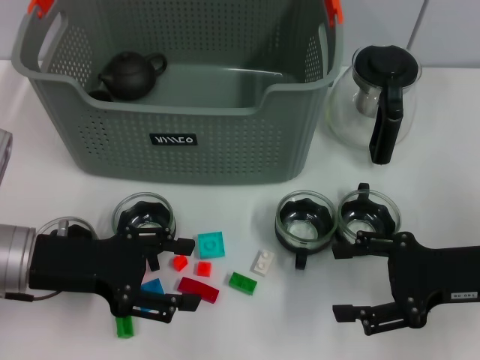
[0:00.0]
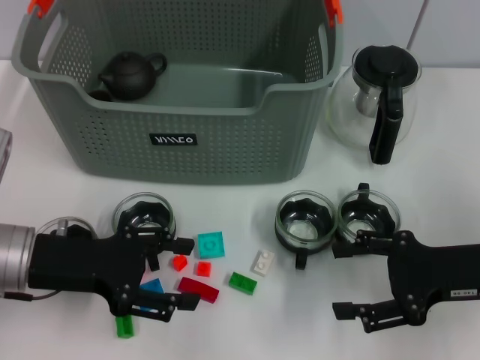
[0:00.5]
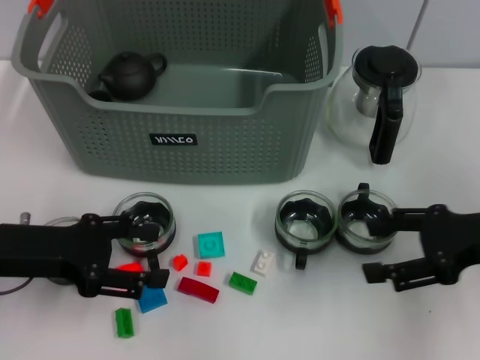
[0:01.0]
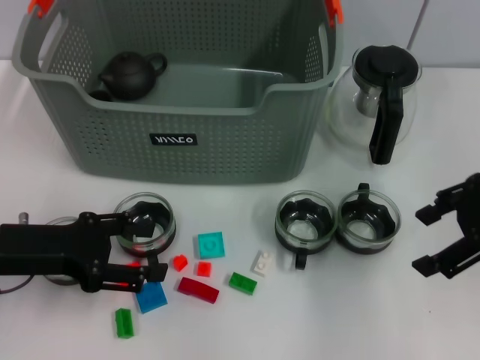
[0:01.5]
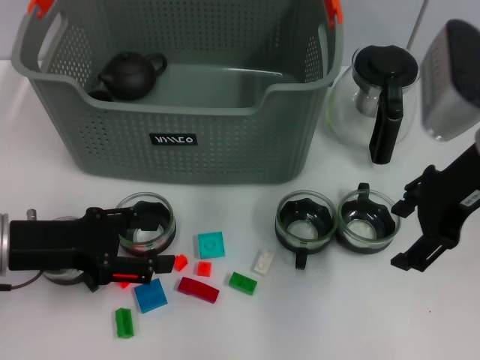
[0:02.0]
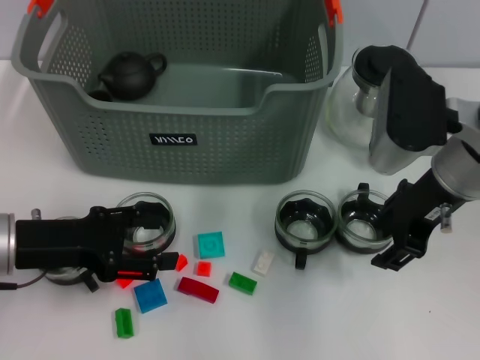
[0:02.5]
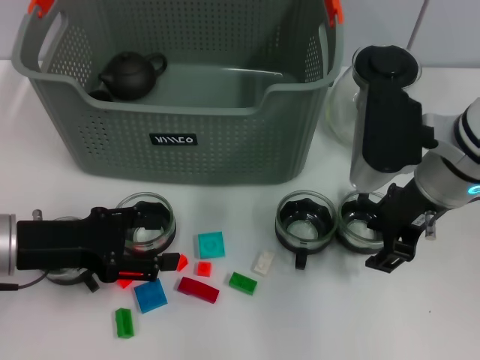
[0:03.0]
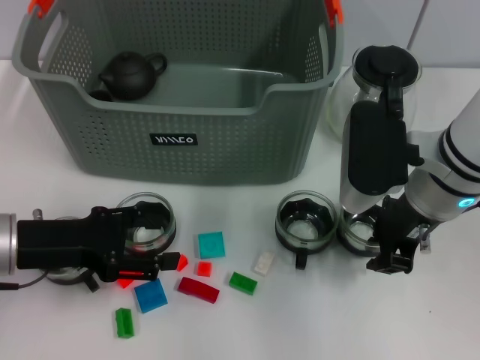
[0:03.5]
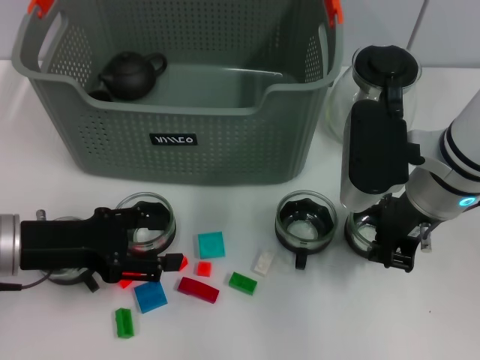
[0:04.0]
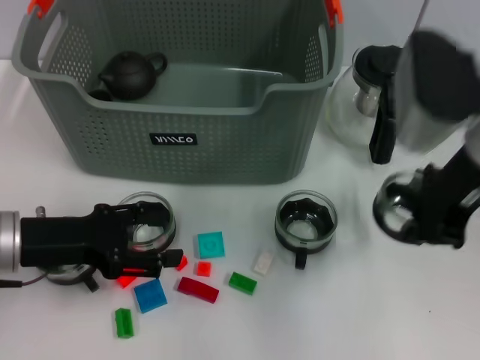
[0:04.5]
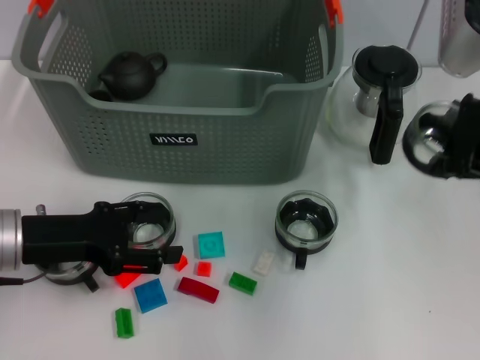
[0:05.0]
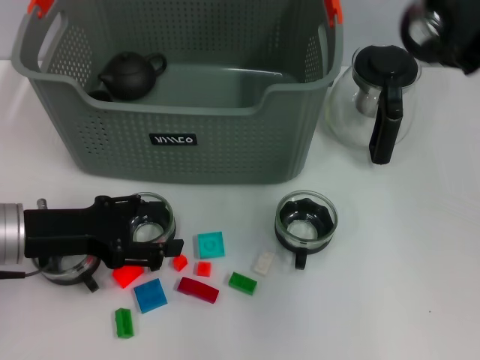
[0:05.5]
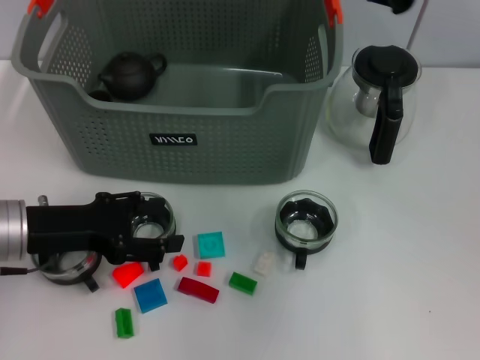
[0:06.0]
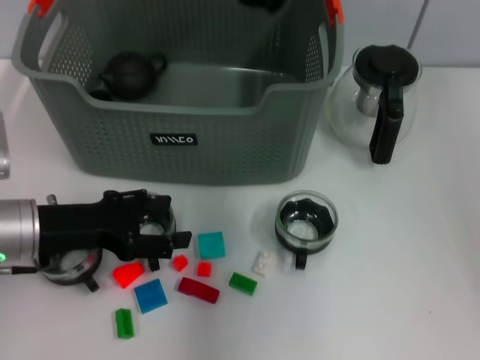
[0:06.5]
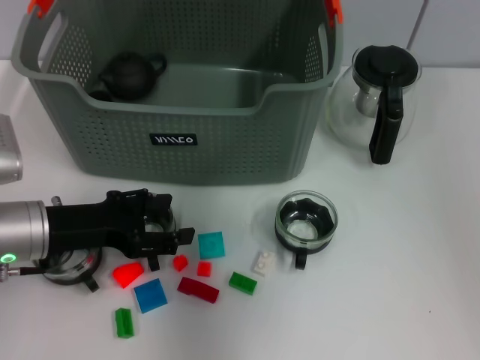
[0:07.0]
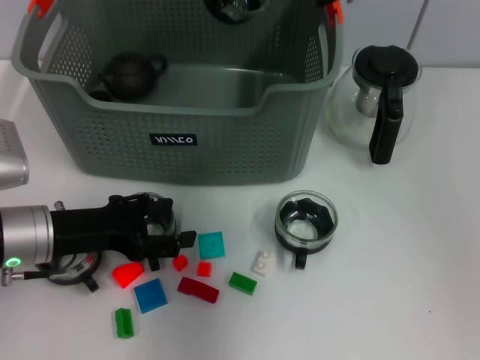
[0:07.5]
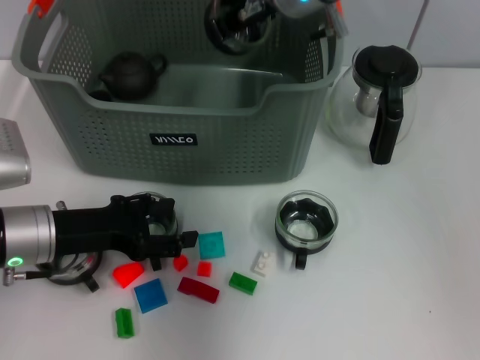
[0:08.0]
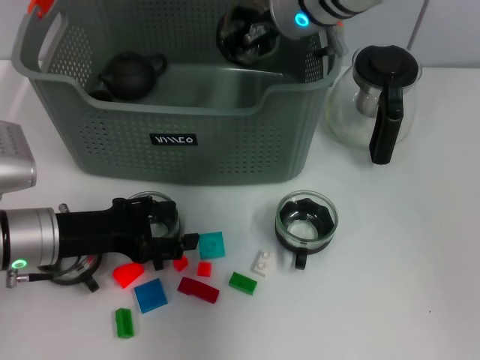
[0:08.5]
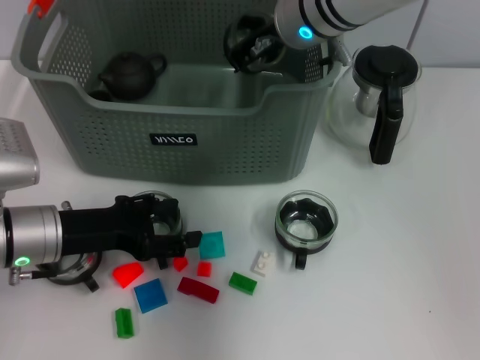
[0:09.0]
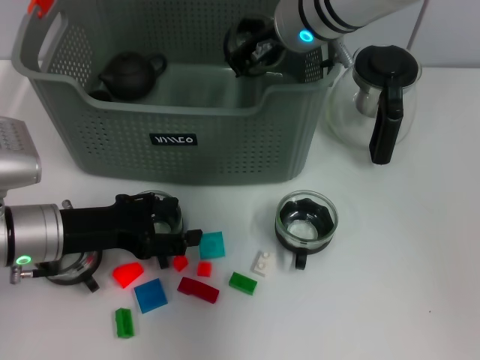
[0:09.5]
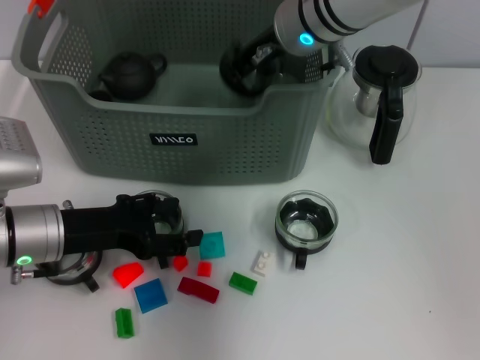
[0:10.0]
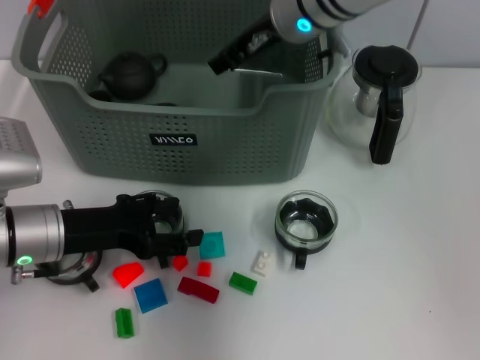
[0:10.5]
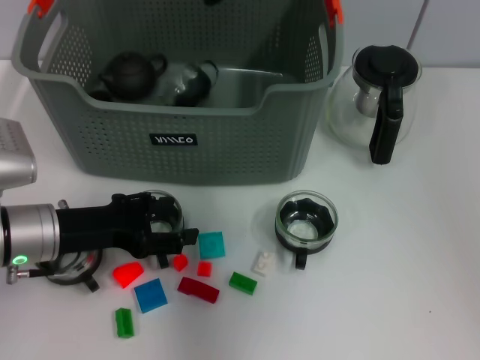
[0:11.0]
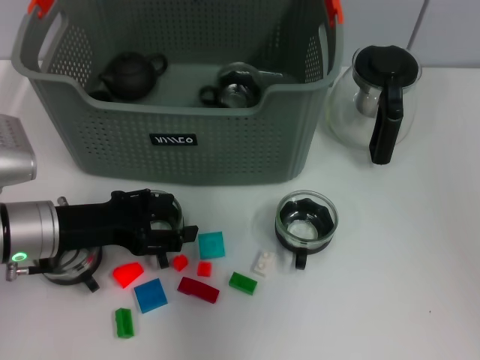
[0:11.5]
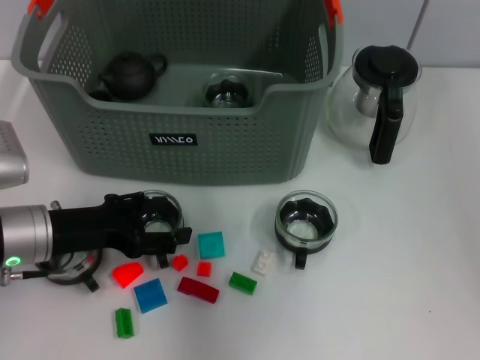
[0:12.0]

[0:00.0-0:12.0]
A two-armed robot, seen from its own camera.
Task of the whole recording: pick up the teacup on the table and place it into the storage bin, pick up the block on the table and place it into the storage bin.
Step, 0:00.0 to 0:03.5: Grasp the cup with right gripper.
Step, 0:04.0 to 0:10.0: Place the cup in the storage box with right gripper.
0:00.0 to 0:02.0: The right gripper moves upward, forward and to the left, about 15 cm.
0:02.0 to 0:04.0: The right gripper moves downward, about 5 cm, and closes its fingers.
0:04.0 to 0:06.0: The right gripper goes approximately 20 cm upward.
0:06.0 to 0:08.0: The right gripper travels to the left, downward and forward by roughly 20 cm.
0:08.0 to 0:10.0: The grippers move only a little.
0:10.0 to 0:12.0: The right gripper moves upward, about 15 cm, and opens.

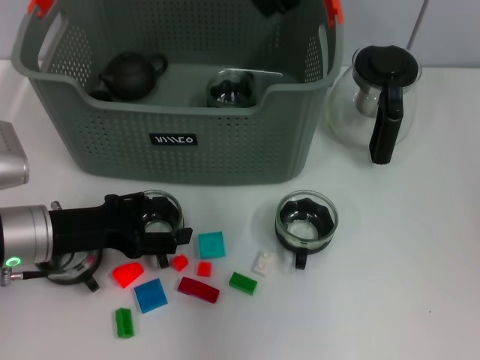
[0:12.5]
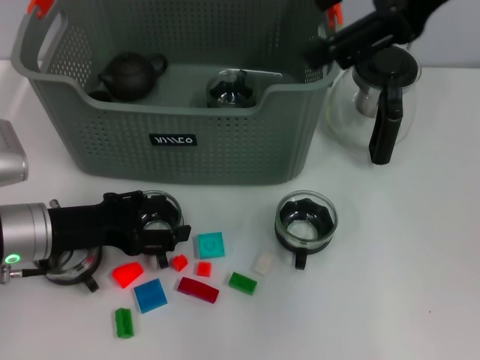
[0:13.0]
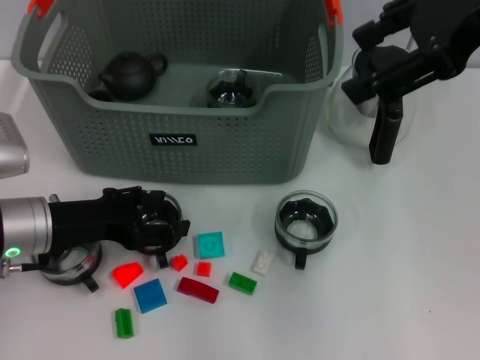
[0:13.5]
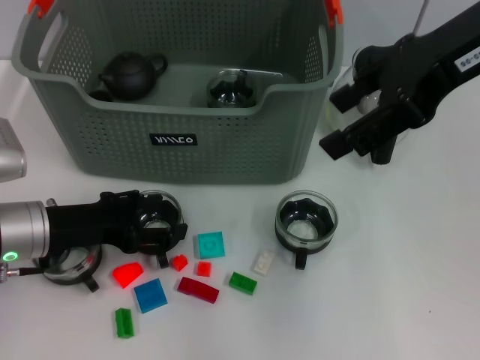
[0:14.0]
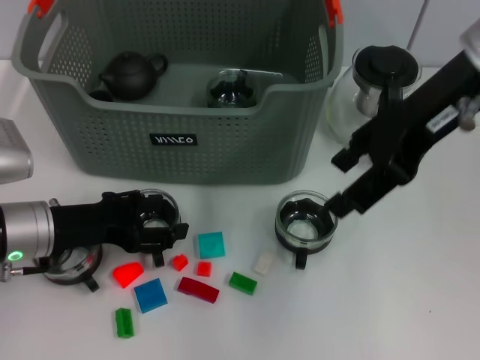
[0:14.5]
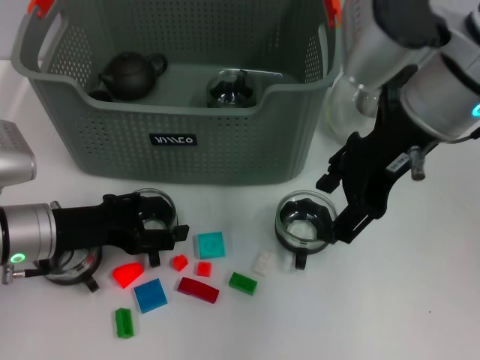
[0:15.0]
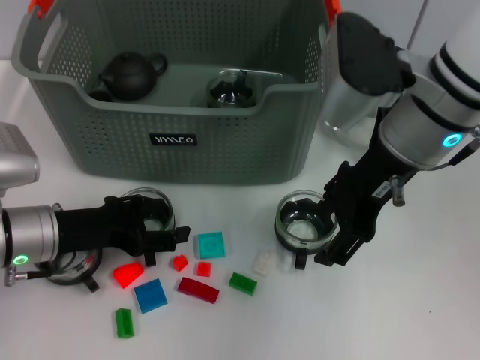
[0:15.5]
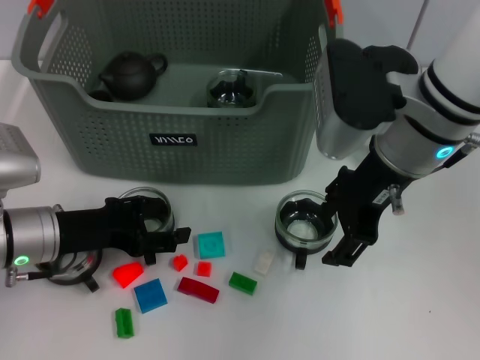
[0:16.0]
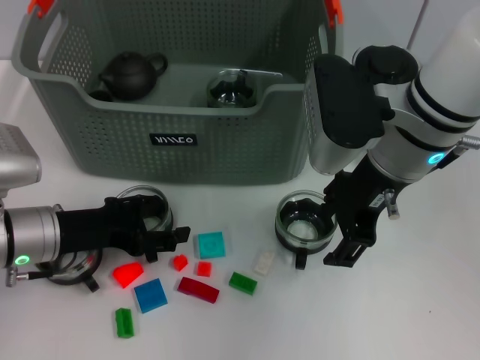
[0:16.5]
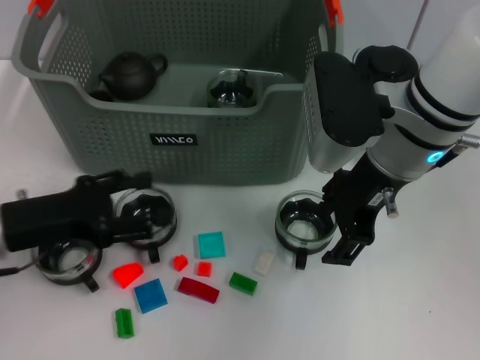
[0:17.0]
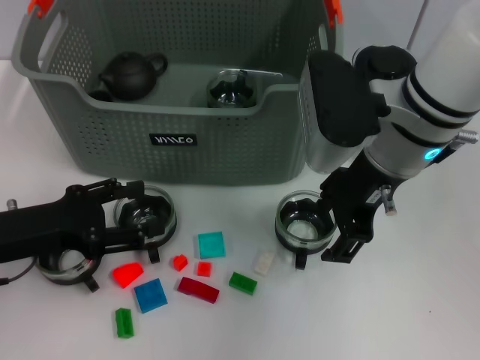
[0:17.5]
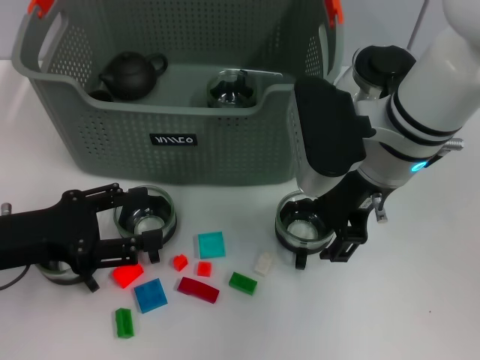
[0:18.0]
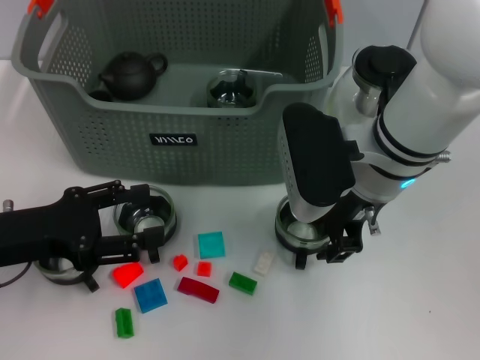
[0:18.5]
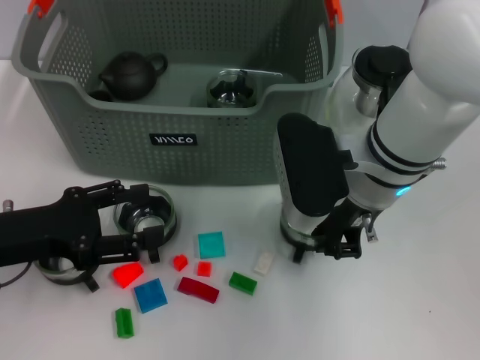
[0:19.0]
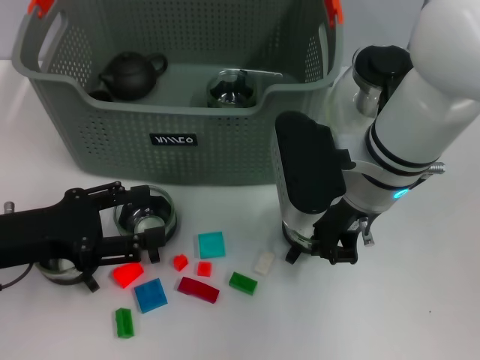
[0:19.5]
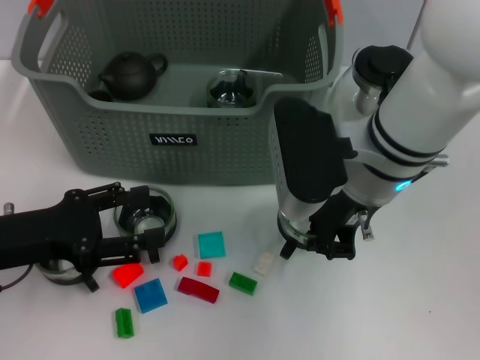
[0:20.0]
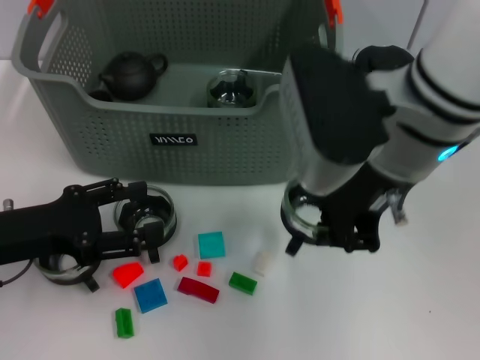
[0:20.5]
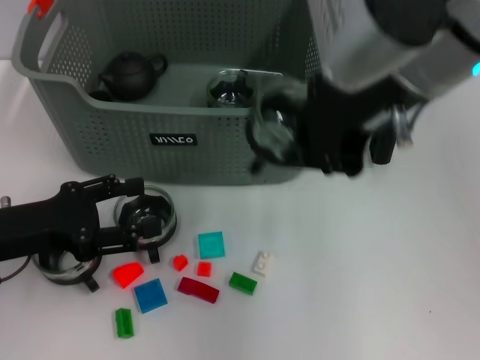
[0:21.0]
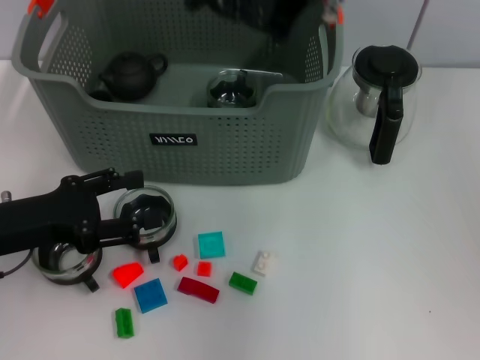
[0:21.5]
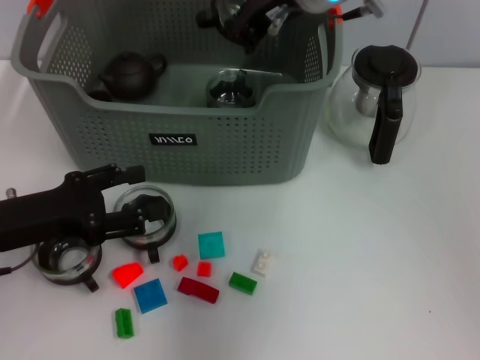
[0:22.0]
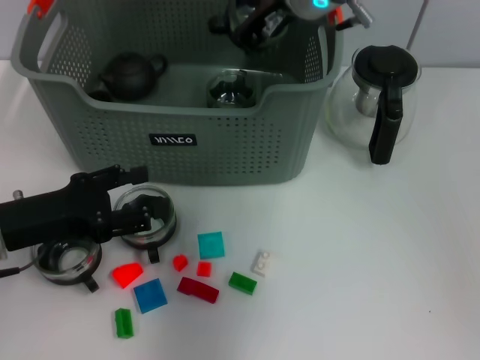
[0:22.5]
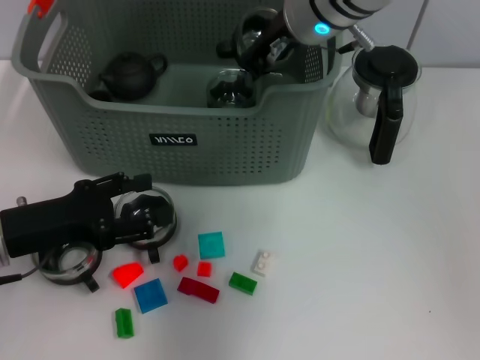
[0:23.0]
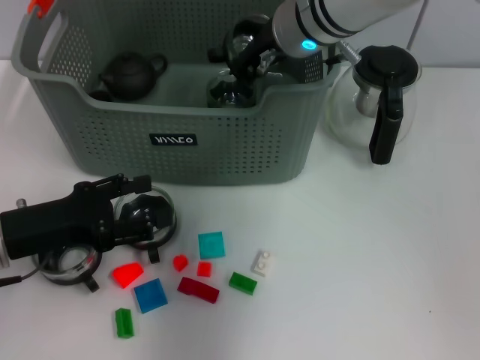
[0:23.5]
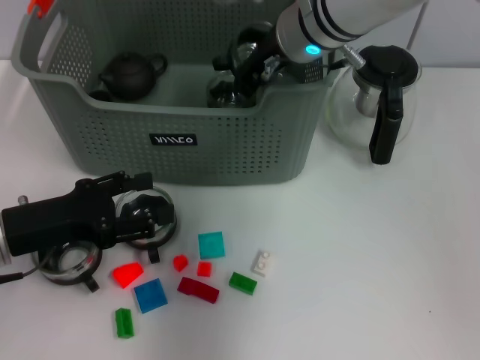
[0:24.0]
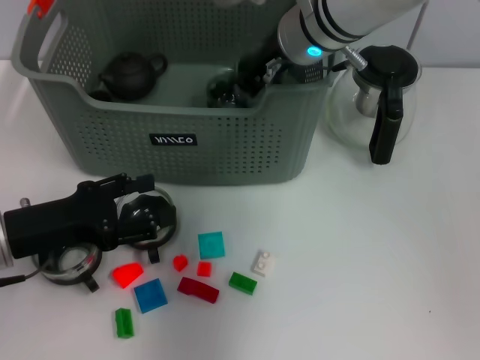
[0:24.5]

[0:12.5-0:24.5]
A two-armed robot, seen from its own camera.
Task of the whole recording: pick up the teacup on the table and place it into the storage bin, pick up the block on the table and place it into the storage bin.
Step, 0:12.5 to 0:19.0: Grasp the cup with right gripper.
0:12.5 to 0:14.5: The right gripper heads downward, covering some 10 cm.
0:14.5 to 0:16.5: The right gripper heads downward, covering about 10 cm.
0:16.5 to 0:18.5: The left gripper changes place by some 10 cm.
0:18.5 to 0:20.5: The right gripper heads upward, covering approximately 10 cm, and closes up.
0:20.5 to 0:22.5: The right gripper moves forward, about 15 cm.
0:22.5 to 0:24.5: The grippers stay close to where they were, moving slightly.

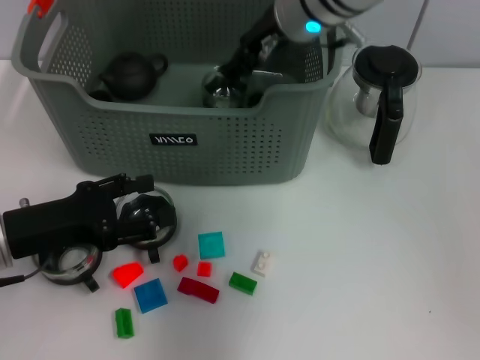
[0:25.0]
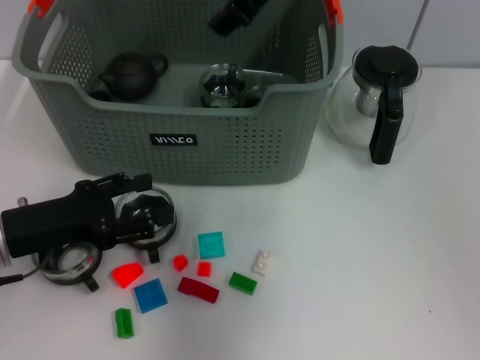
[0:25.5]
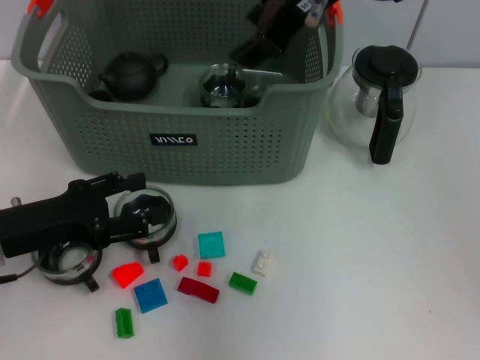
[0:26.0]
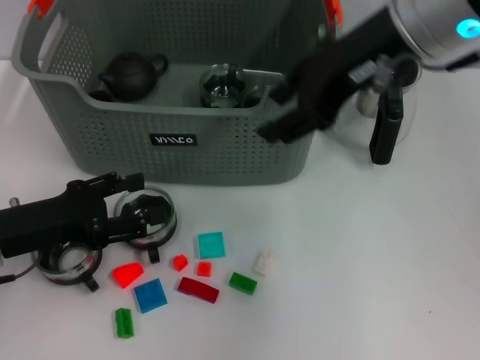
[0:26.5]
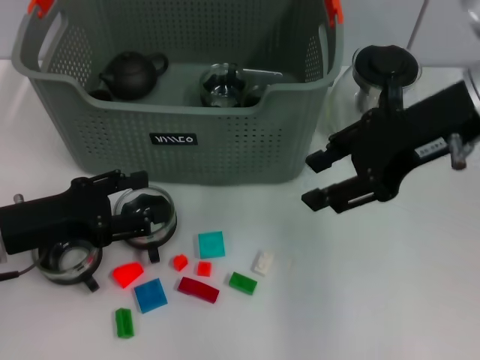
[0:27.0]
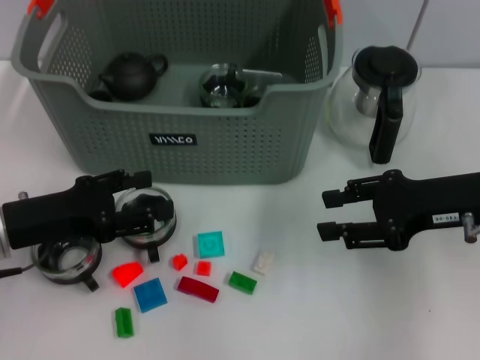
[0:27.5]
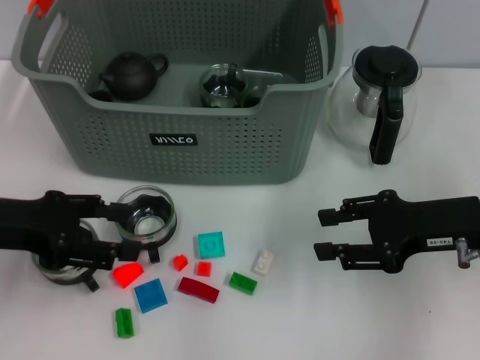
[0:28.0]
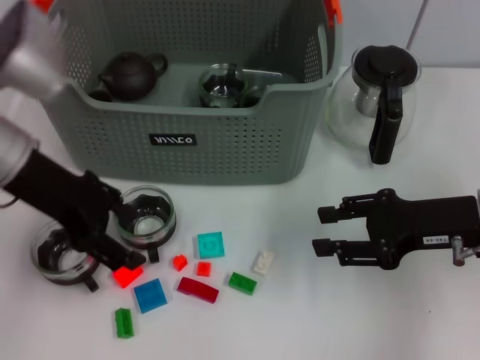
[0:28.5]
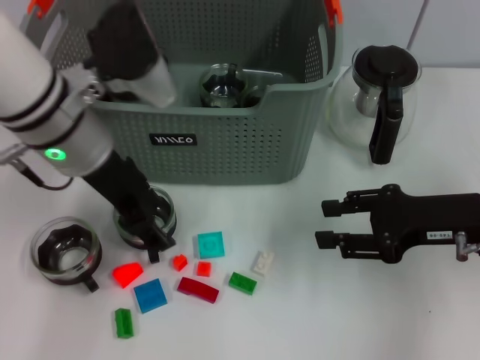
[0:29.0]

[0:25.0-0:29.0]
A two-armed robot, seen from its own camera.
Task of the whole recording: pick up the teacup on the table and place it into the storage bin, pick up the block on the table and place it into the storage bin.
0:25.0 to 0:27.0: The right gripper goes about 20 cm to the right and backward.
0:27.0 to 0:29.0: The left gripper moves to the right, upward and forward, roughly 20 cm. Meanwhile the right gripper shifts some 15 cm downward and to the right.
